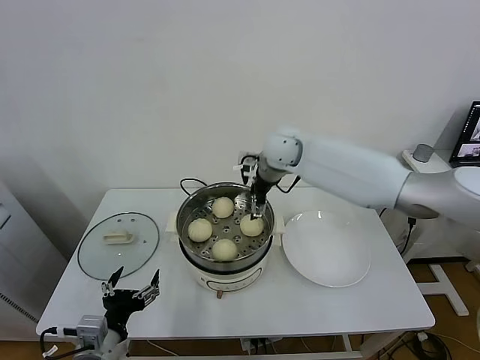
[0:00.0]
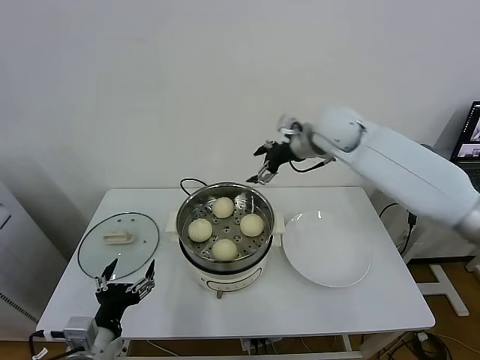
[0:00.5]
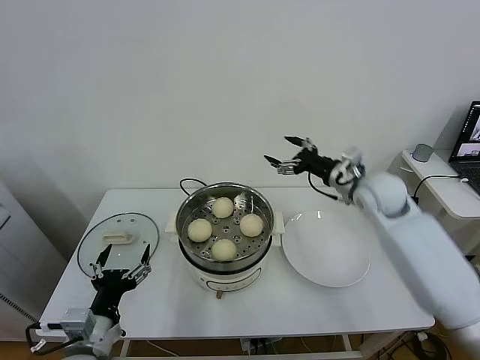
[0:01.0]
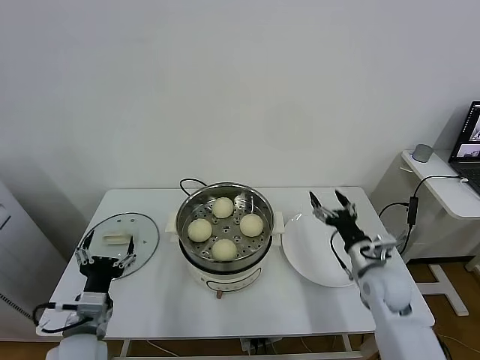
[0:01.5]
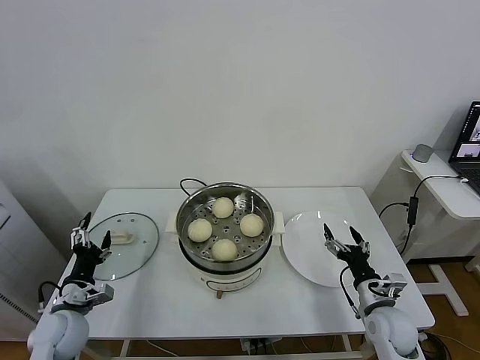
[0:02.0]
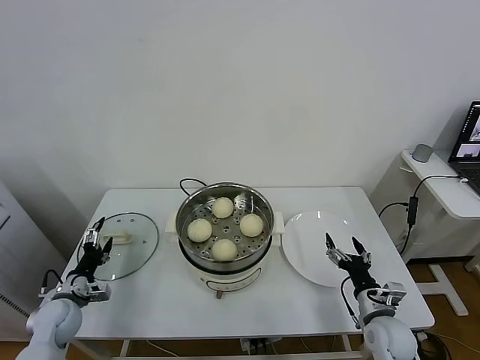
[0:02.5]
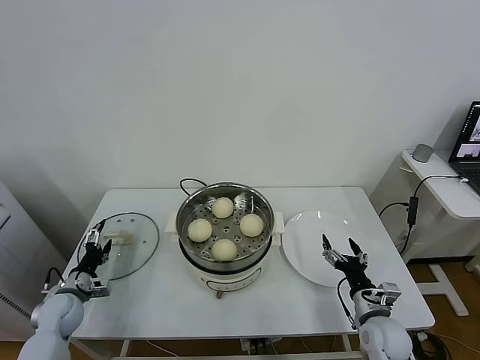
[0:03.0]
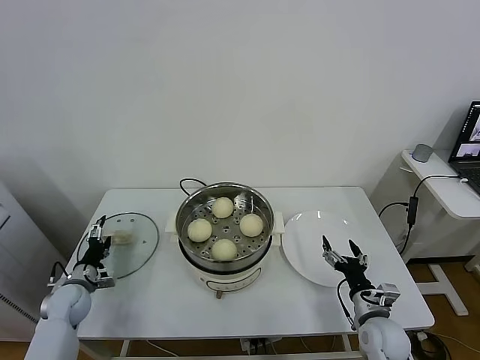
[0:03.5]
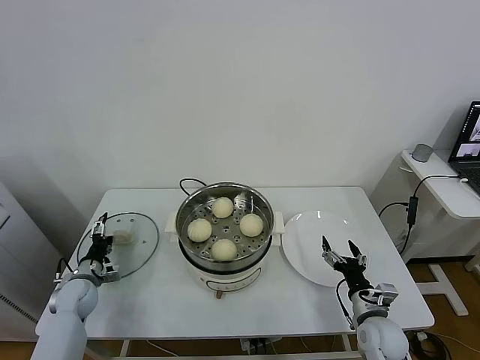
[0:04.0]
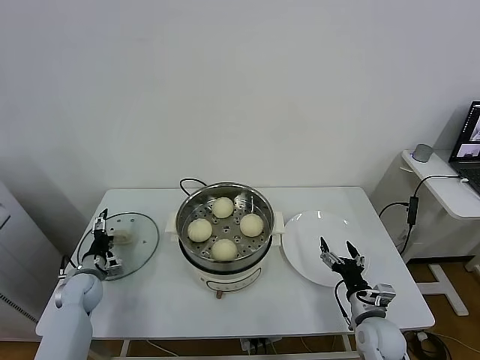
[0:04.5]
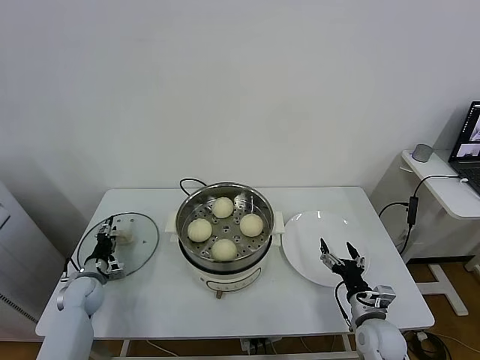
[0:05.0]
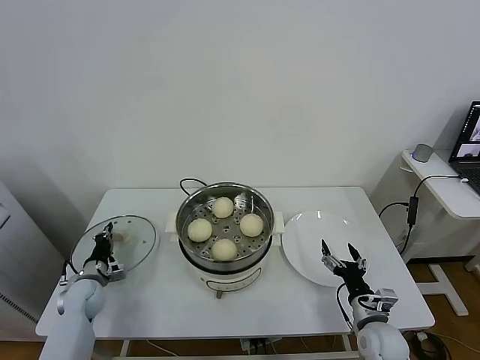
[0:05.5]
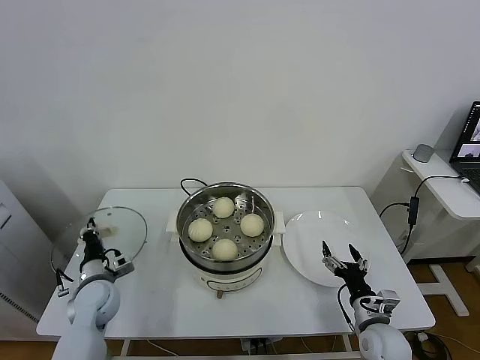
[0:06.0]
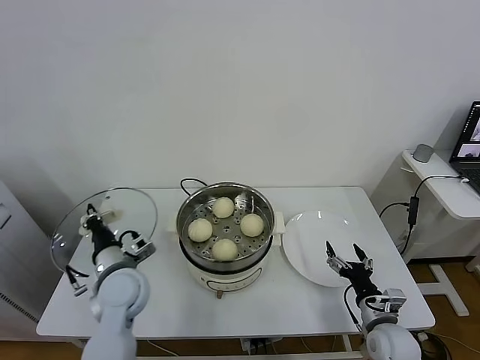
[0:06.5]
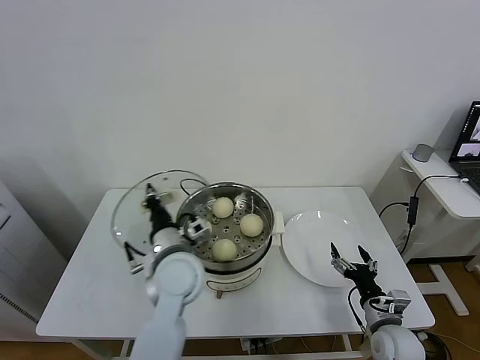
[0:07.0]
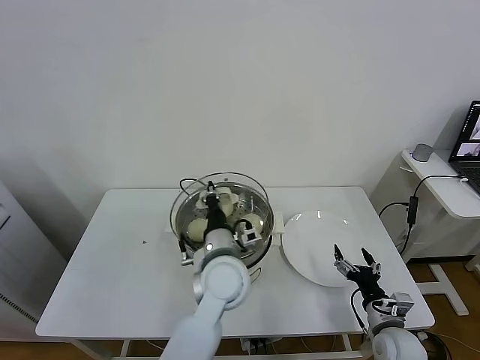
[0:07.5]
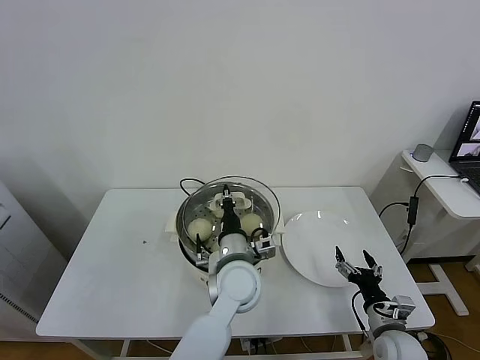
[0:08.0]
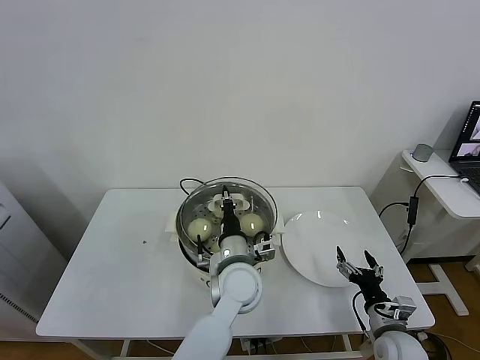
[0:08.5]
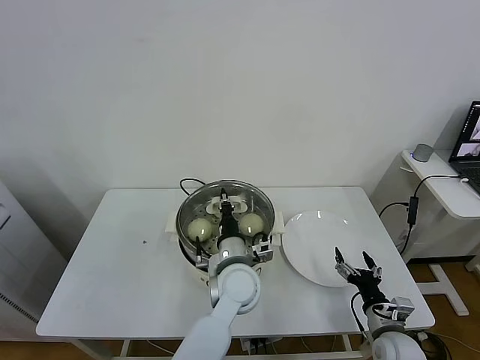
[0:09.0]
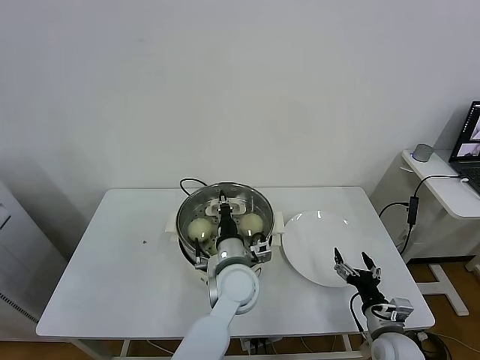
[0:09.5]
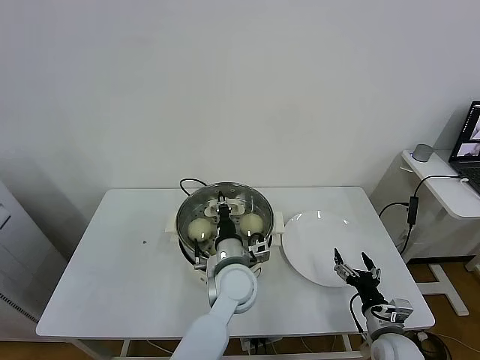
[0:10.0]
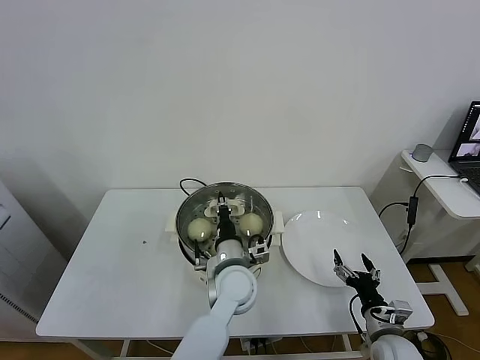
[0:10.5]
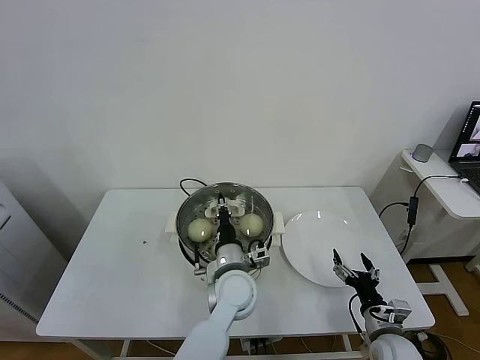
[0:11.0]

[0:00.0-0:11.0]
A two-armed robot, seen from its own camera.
Task of the whole recording: take steamed baozi put them in steamer.
Step, 0:00.5 to 0:05.5: Grasp the pot lid with left gripper.
0:00.0 to 0:02.0: The right gripper shifts roughly 50 cm downward, backward and to the right. Meanwhile the left gripper heads forward, to the left and downward, covering some 15 cm.
0:02.0 to 0:03.5: The left gripper moves forward, downward and to the left, about 15 cm.
0:03.5 to 0:05.5: The left gripper closes.
0:05.5 to 0:07.5: The left gripper moves to the right and upward, some 40 cm.
0:07.5 to 0:09.0: The left gripper changes place by approximately 5 cm.
0:09.0 to 0:11.0: There are only small adjustments of the grippers.

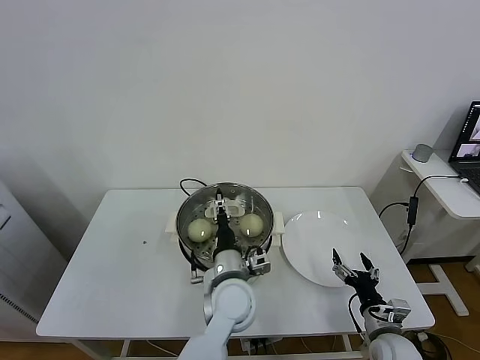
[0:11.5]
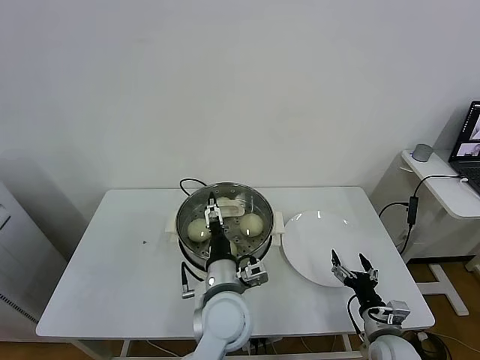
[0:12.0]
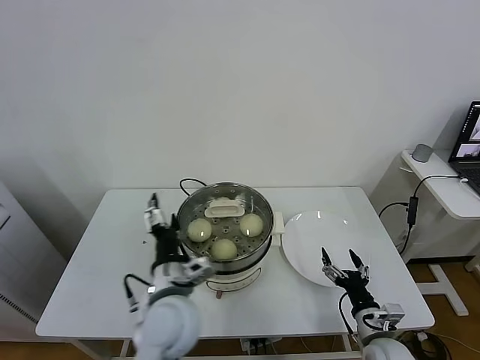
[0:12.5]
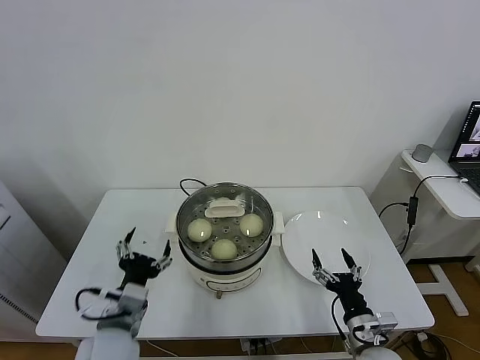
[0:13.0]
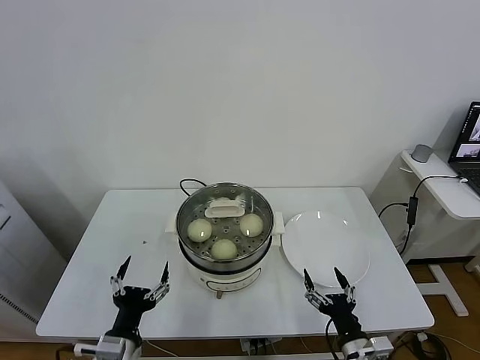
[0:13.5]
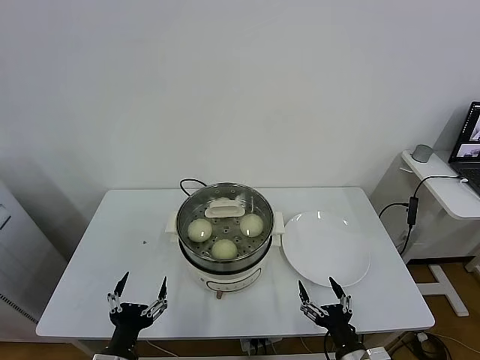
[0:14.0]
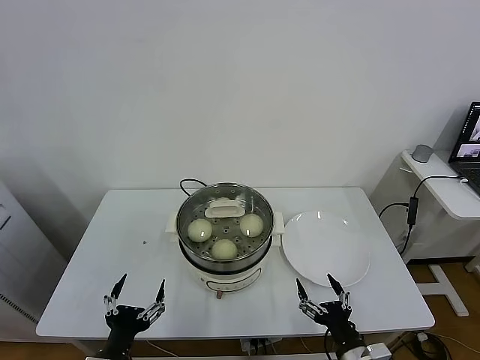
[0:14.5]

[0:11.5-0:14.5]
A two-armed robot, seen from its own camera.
Task of the whole recording: take steamed baozi put them in steamer.
0:11.5 to 0:13.0: The right gripper ends up some 5 cm from where it was. The left gripper travels to the left and backward by roughly 20 cm.
0:13.0 to 0:14.5: The left gripper moves backward and downward, some 10 cm. Meanwhile the right gripper is displaced backward by about 5 cm.
